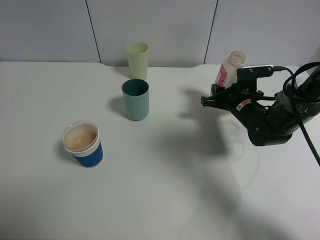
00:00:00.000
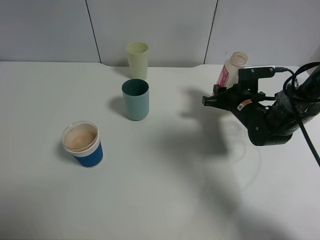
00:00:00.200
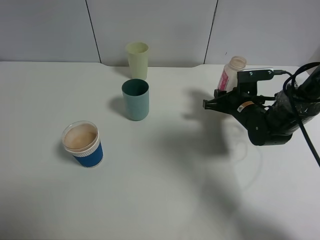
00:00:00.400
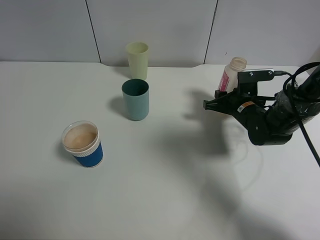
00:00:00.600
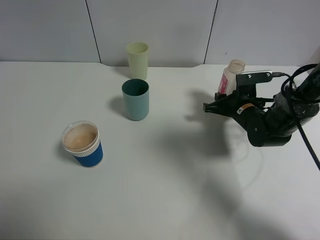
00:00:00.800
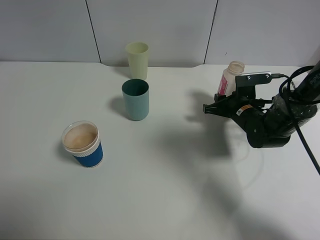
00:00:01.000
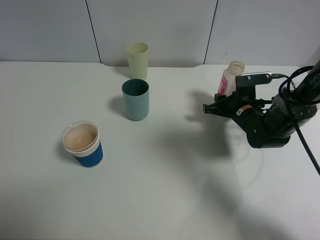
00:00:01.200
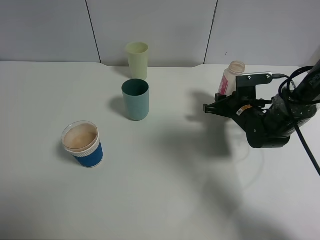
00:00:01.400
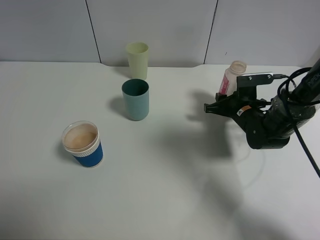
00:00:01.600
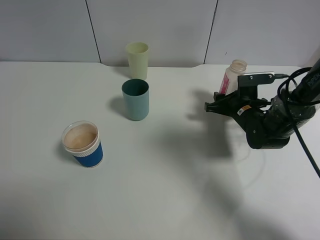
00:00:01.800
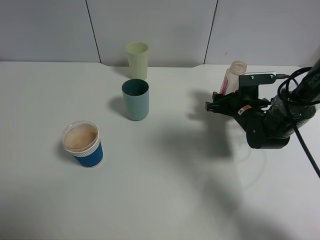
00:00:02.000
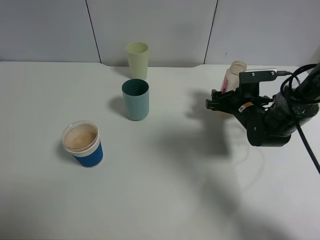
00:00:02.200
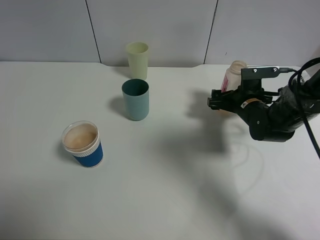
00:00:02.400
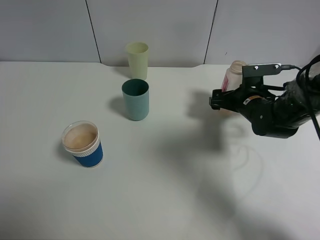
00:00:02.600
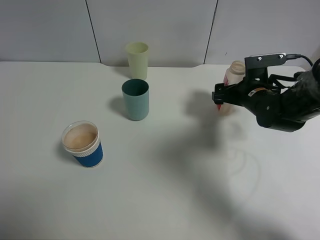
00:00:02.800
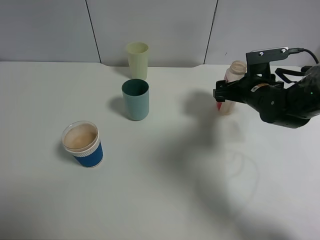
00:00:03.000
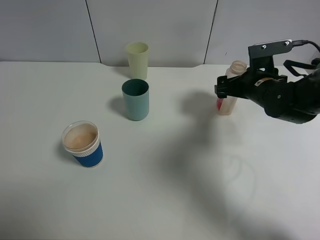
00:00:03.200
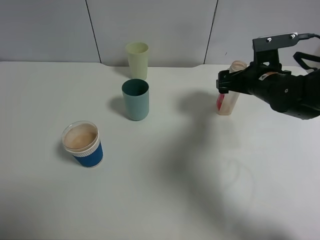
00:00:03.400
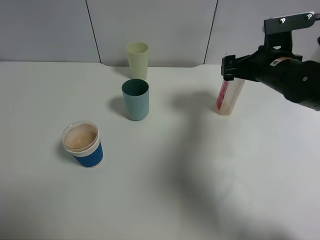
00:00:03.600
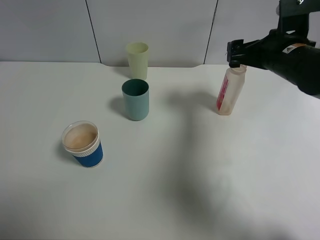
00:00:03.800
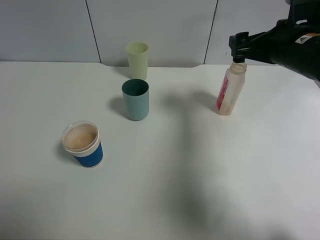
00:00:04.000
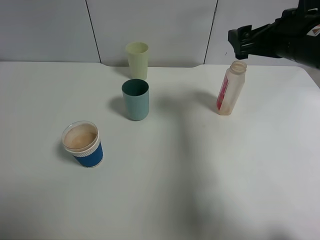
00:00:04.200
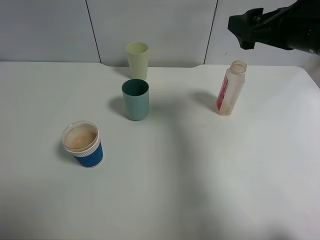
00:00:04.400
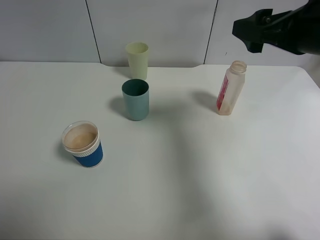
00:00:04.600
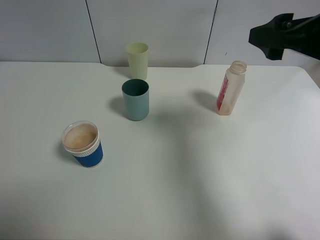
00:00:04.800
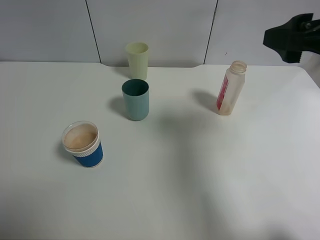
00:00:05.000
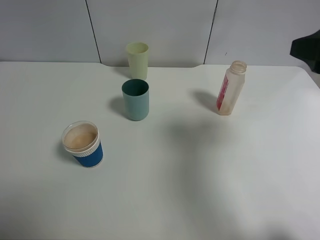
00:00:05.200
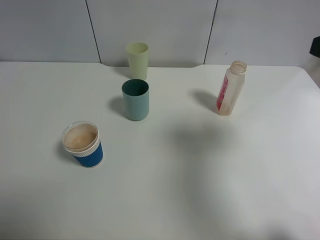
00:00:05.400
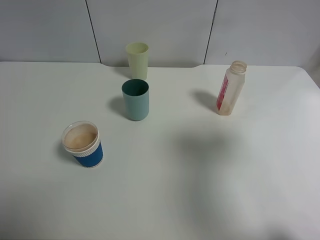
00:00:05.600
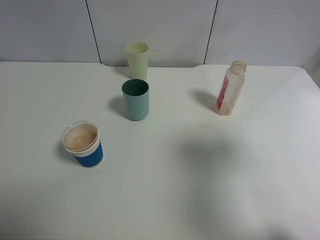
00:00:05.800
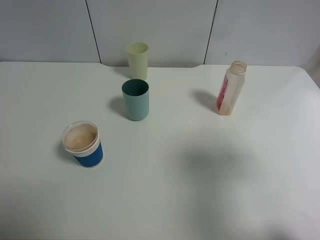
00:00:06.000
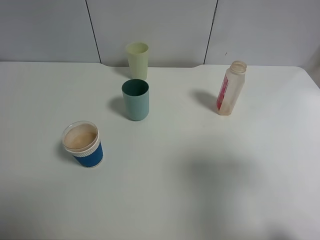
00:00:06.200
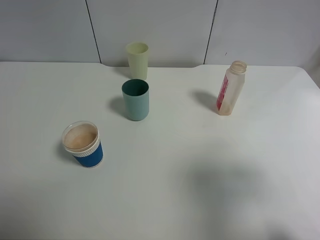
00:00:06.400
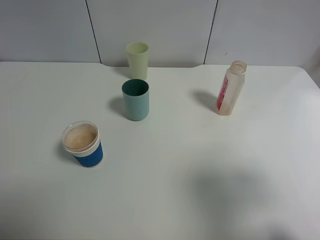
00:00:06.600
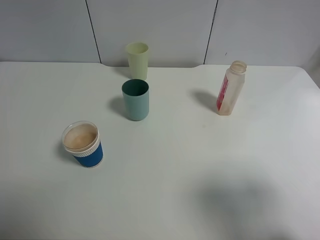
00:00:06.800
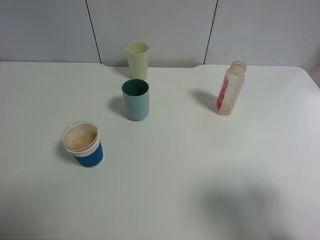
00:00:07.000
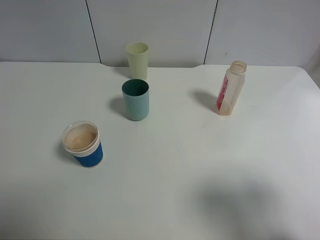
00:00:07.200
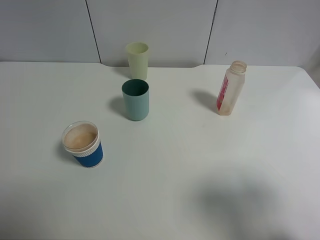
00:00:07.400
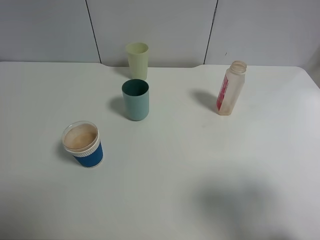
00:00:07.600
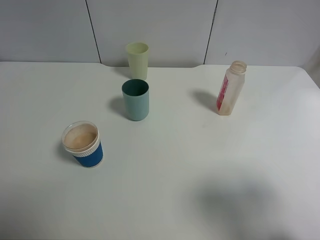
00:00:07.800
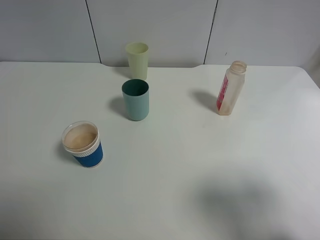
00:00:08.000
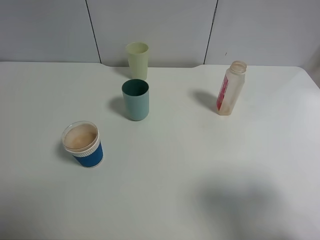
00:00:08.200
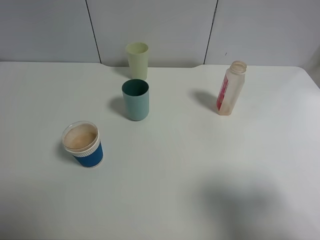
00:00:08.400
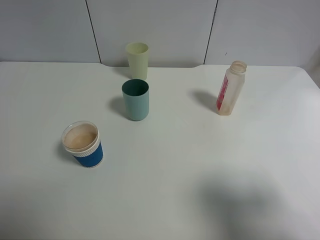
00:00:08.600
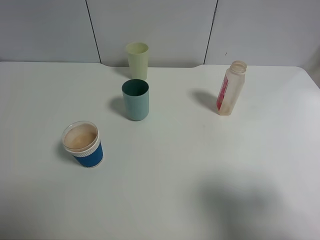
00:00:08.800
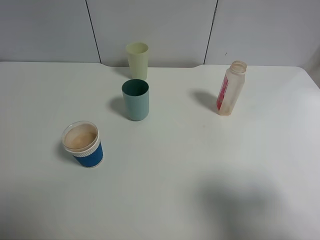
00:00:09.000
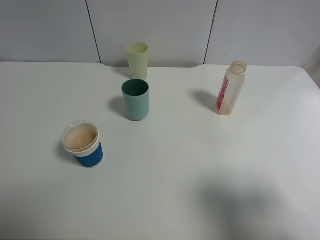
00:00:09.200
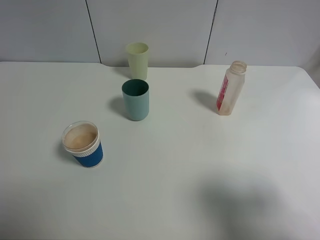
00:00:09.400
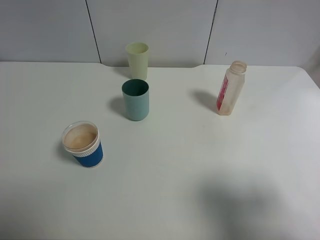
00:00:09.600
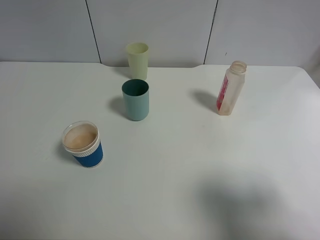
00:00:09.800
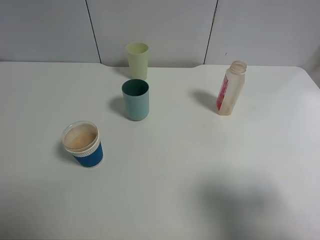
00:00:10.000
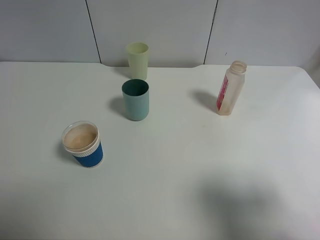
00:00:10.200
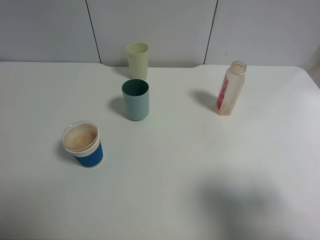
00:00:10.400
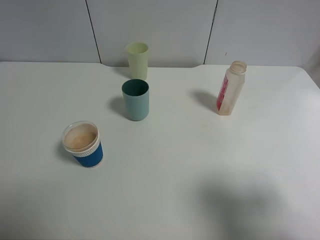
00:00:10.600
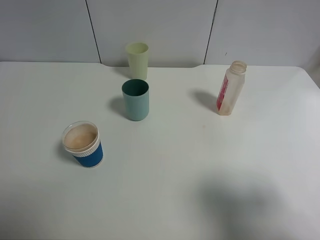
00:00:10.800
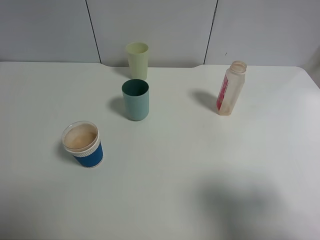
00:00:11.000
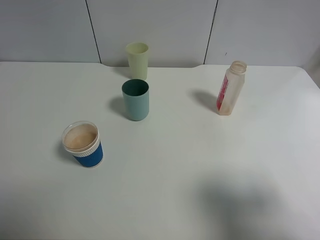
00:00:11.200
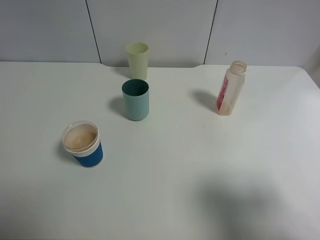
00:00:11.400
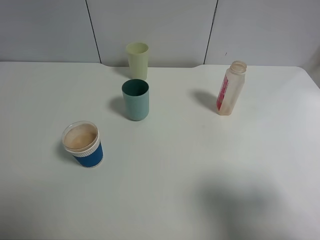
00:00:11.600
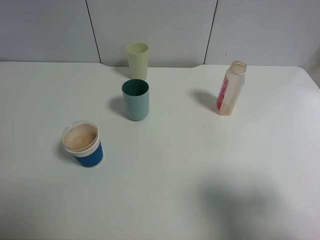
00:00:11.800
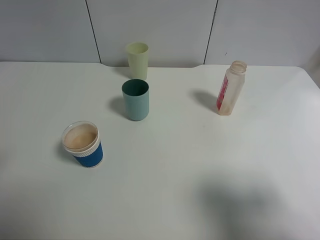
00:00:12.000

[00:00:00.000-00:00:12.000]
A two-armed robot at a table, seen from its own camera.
Task of the whole recording: use a clamp to hold the bottle of the drink, pour the beverage into a random cup, then clamp the cup containing the drink and pour the drink into another random cup.
Step, 00:00:00.000 to 00:00:03.400: Place the drink bottle on the table with right gripper.
00:00:00.000 to 00:00:01.600: The grippers stay close to where they were, moving slightly.
00:00:01.600 to 00:00:03.000: The right gripper goes roughly 5 cm upward, and opens up.
00:00:03.000 to 00:00:04.400: The right gripper travels upward and backward by some 20 cm.
00:00:04.400 to 00:00:06.000: The right gripper travels backward and to the right by some 20 cm.
00:00:06.000 to 00:00:07.600: The right gripper shifts some 10 cm backward and downward.
00:00:09.000 to 00:00:10.400: The two grippers keep their place.

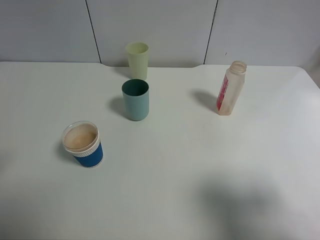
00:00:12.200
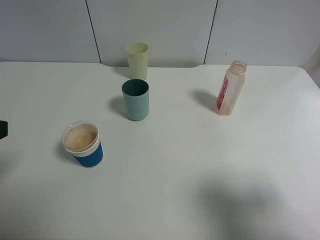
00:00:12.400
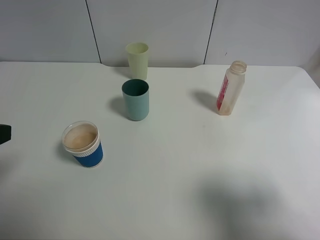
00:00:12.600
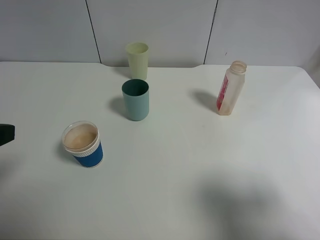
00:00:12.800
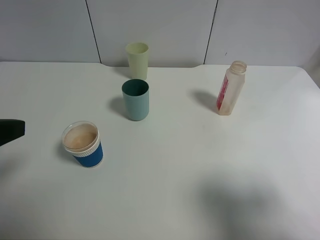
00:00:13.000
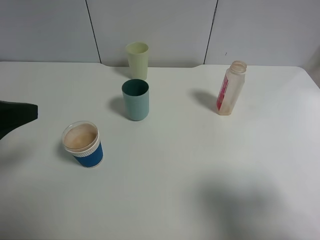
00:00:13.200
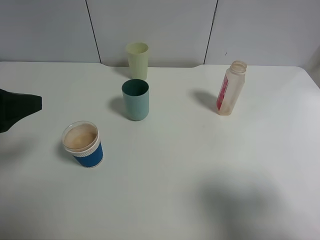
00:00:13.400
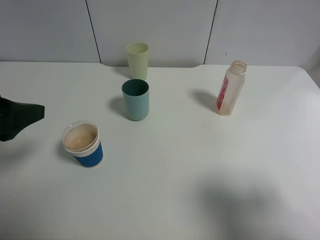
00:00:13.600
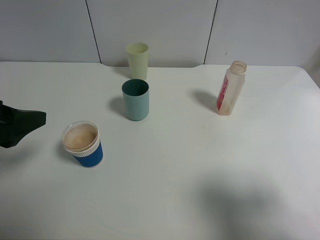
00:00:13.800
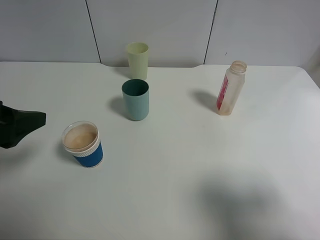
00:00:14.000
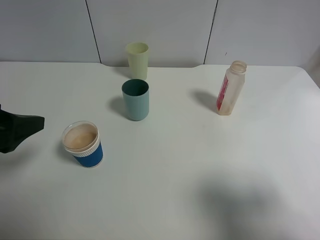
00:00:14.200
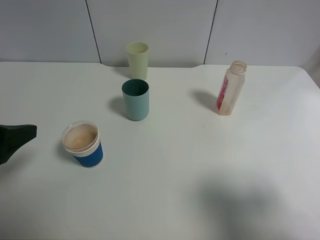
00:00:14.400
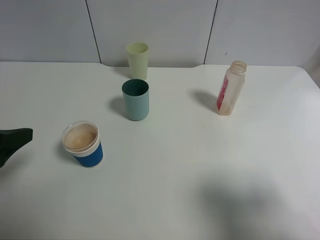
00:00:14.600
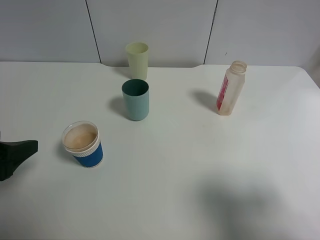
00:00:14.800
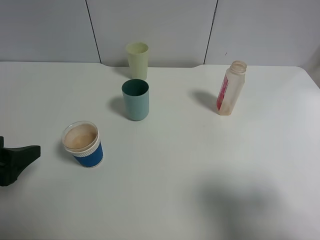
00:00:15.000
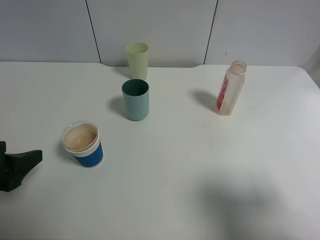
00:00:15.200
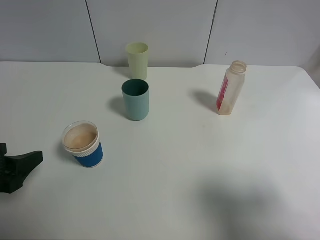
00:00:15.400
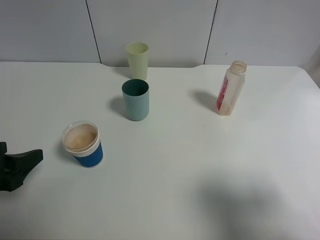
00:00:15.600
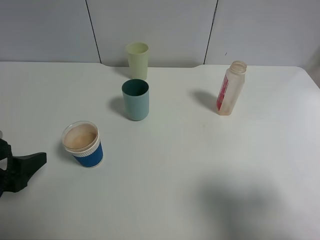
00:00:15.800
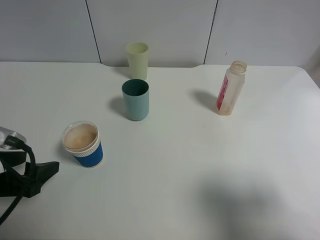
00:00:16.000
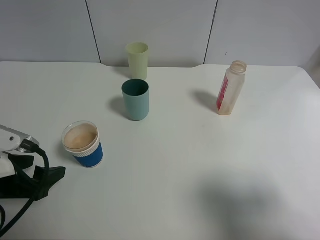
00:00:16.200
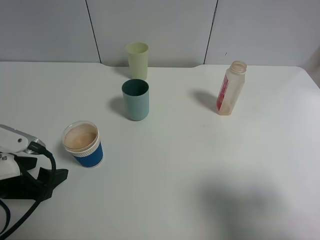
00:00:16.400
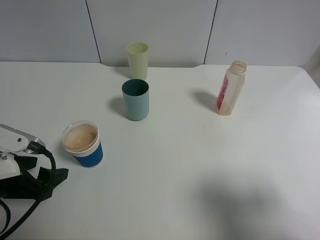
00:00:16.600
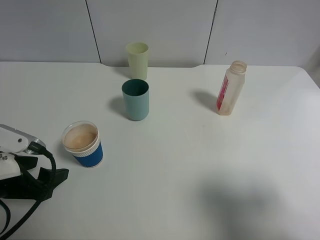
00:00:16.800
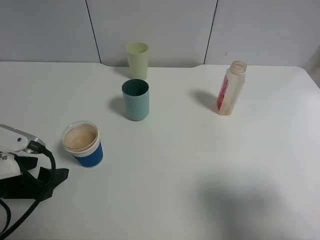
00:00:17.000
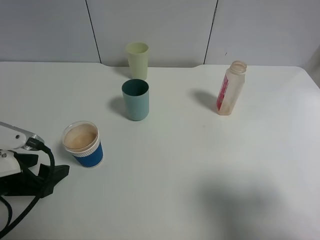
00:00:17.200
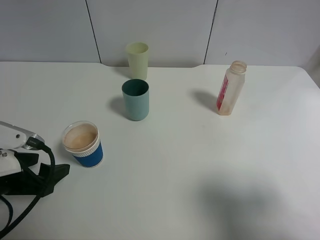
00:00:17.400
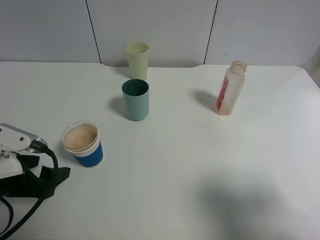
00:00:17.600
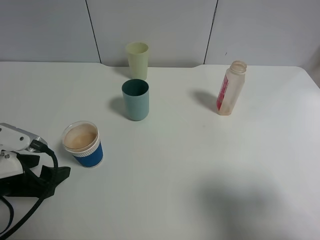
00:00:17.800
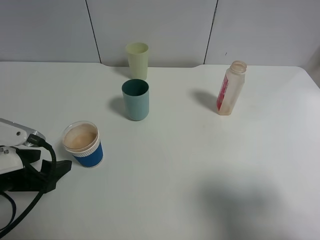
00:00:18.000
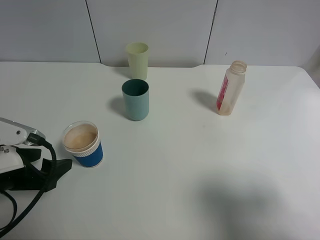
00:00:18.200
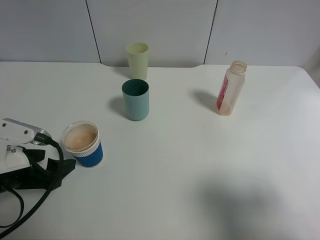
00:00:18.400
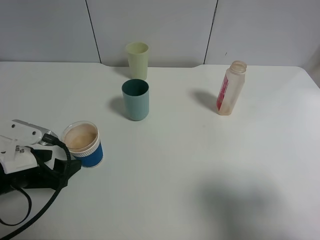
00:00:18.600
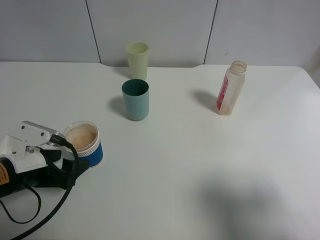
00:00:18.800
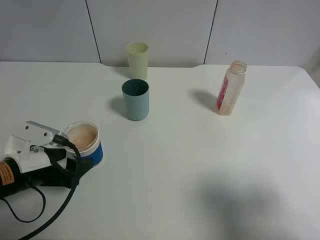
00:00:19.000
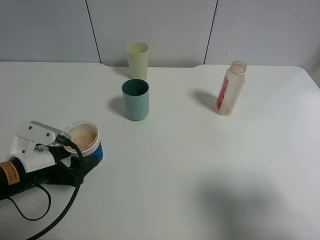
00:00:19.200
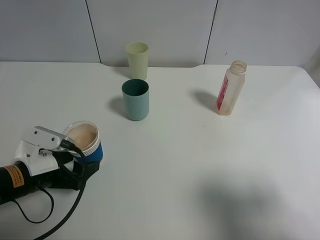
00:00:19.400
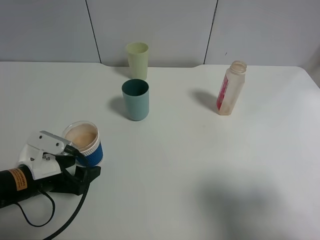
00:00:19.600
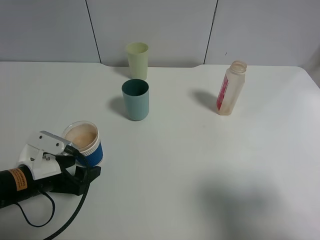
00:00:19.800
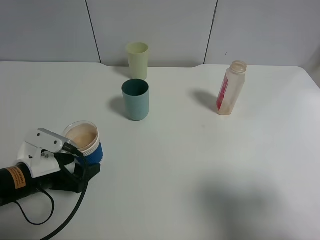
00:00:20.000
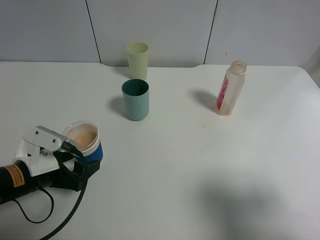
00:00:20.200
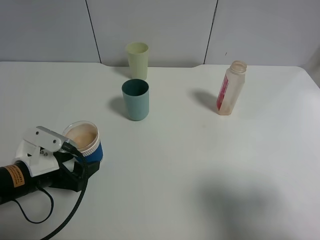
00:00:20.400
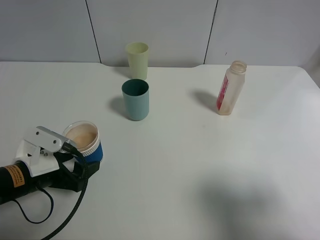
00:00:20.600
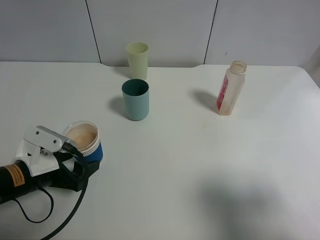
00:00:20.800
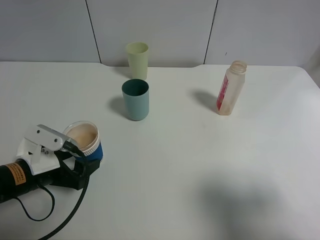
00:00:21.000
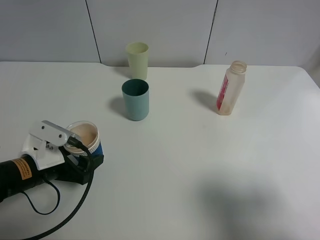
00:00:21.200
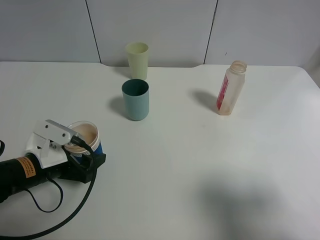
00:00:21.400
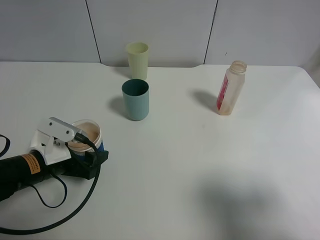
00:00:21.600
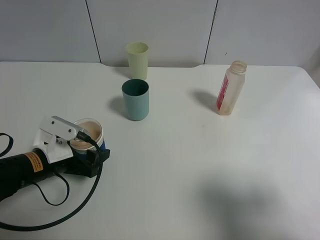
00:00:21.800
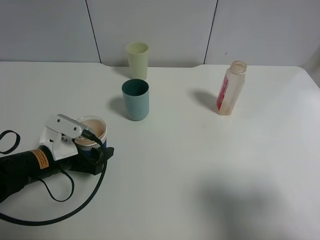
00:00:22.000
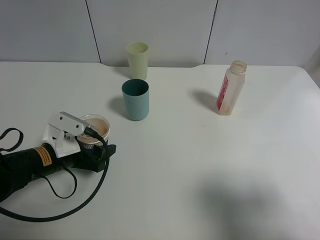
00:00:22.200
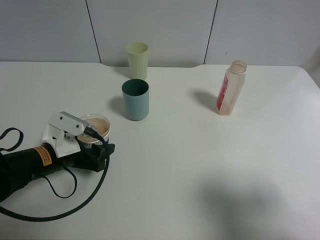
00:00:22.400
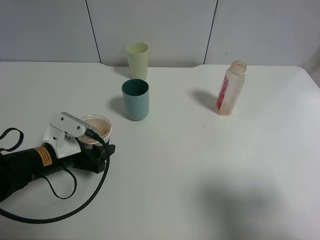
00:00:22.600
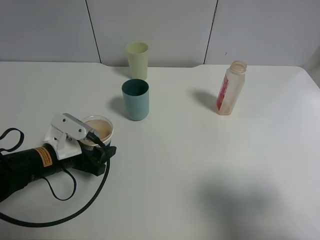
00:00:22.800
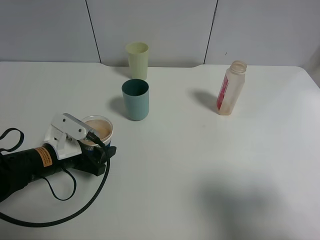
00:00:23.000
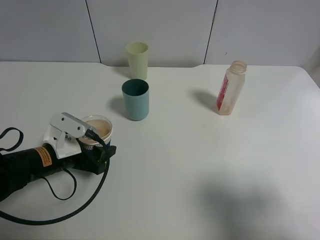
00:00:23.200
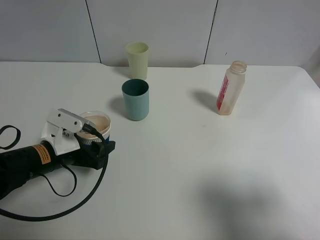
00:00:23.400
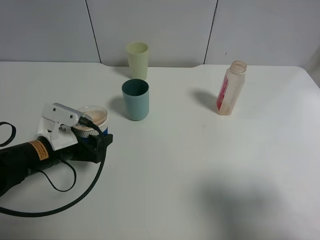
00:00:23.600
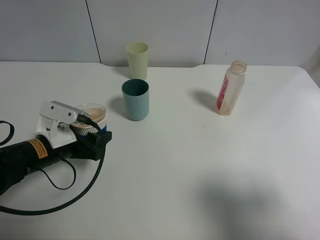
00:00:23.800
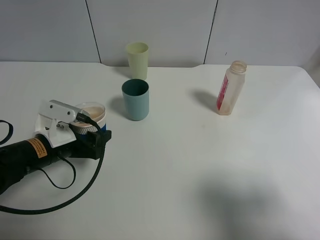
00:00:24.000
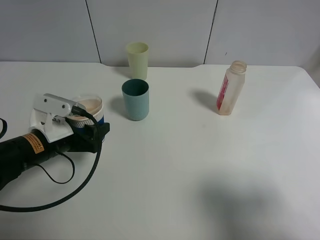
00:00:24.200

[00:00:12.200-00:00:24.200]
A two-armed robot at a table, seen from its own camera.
Task of the whole recording: use a clamp to hold the bottle of the drink, pour the beverage into a random cup, then clamp the cup containing the drink and pour the drink into another random cup.
Step, 00:00:12.200 to 00:00:23.600: Pick up the paper cup with left gripper.
00:00:12.200 to 00:00:13.800: The left gripper shifts some 10 cm forward and downward.
00:00:13.800 to 00:00:15.200: The left gripper travels downward by roughly 5 cm.
00:00:15.200 to 00:00:16.600: The left gripper is displaced downward by about 5 cm.
00:00:16.600 to 00:00:18.200: The grippers stay close to where they were, moving slightly.
00:00:18.200 to 00:00:19.800: The left gripper heads downward, covering about 5 cm.
00:00:19.800 to 00:00:24.200: The grippers stay close to where they were, moving slightly.
